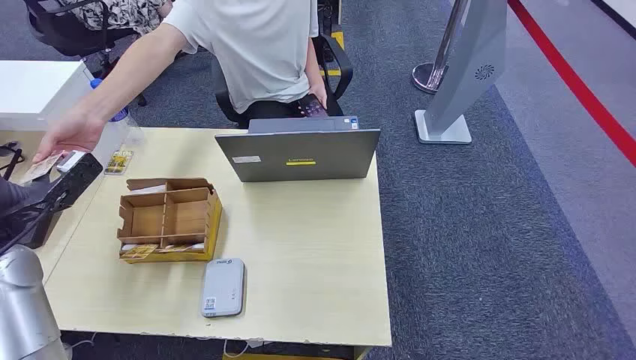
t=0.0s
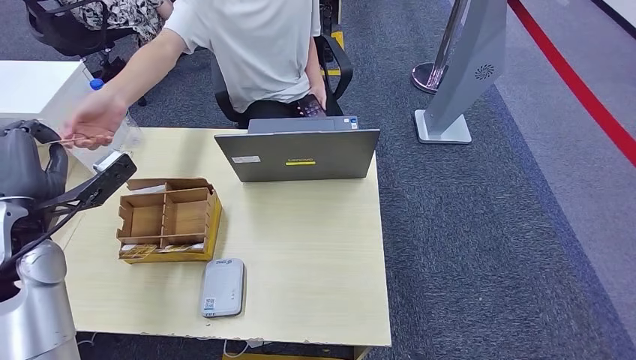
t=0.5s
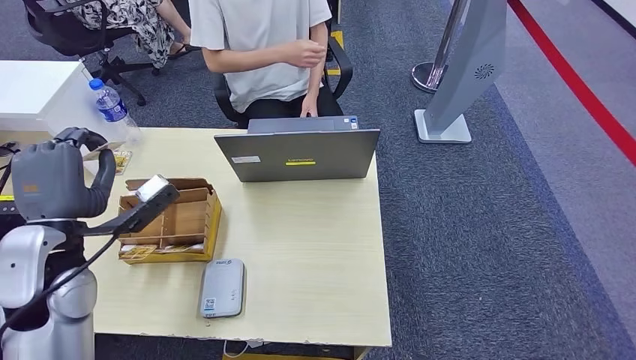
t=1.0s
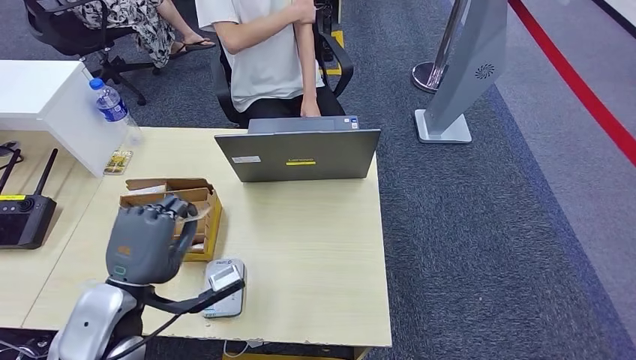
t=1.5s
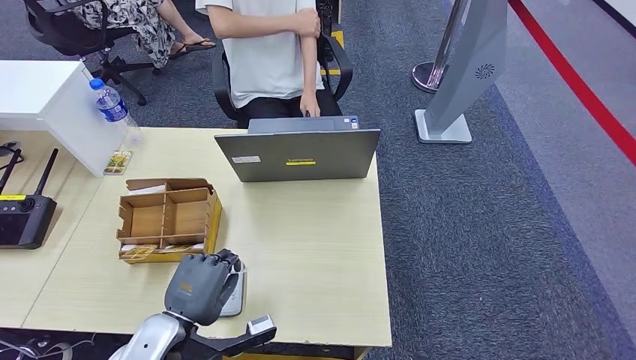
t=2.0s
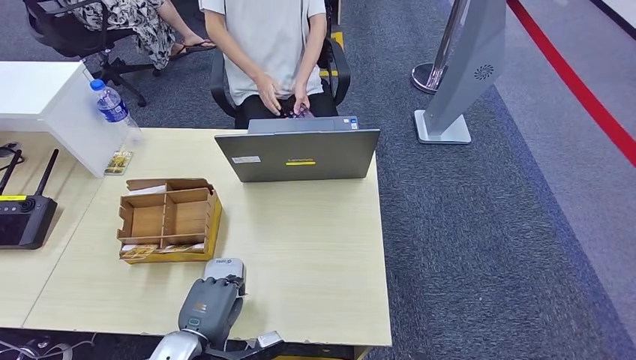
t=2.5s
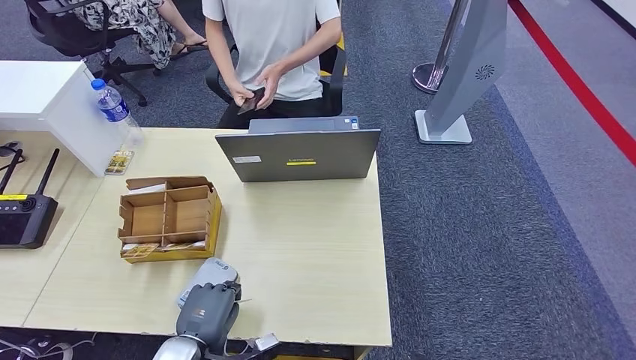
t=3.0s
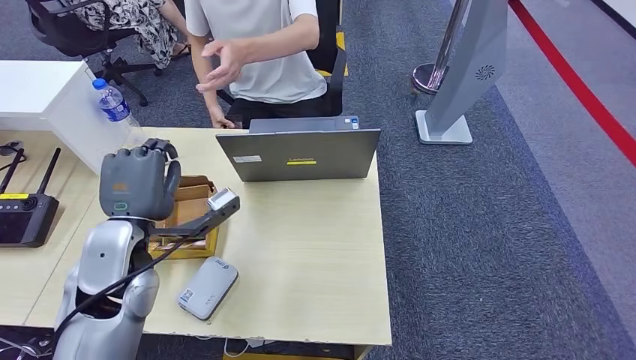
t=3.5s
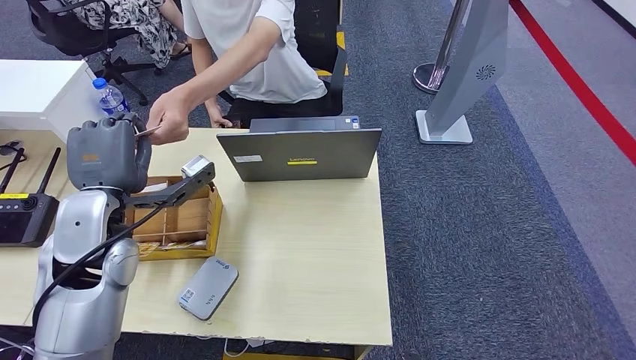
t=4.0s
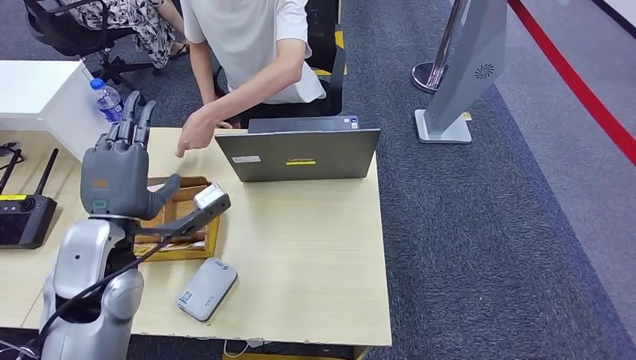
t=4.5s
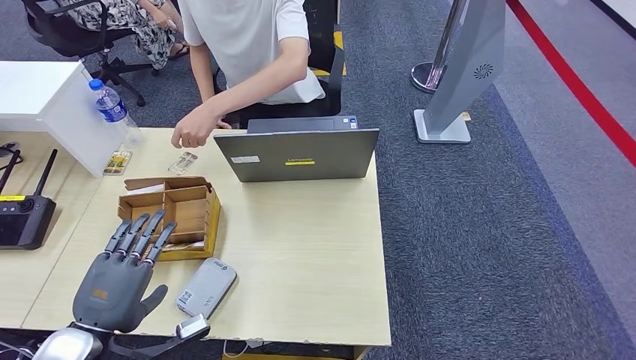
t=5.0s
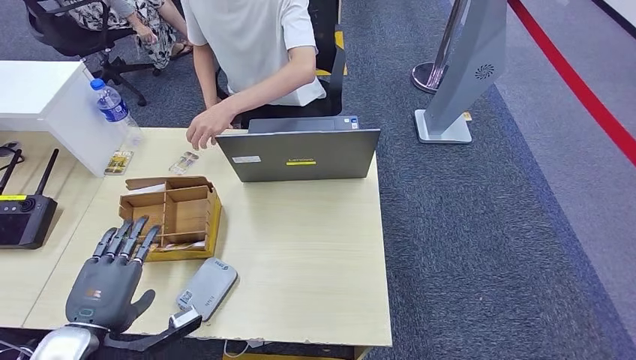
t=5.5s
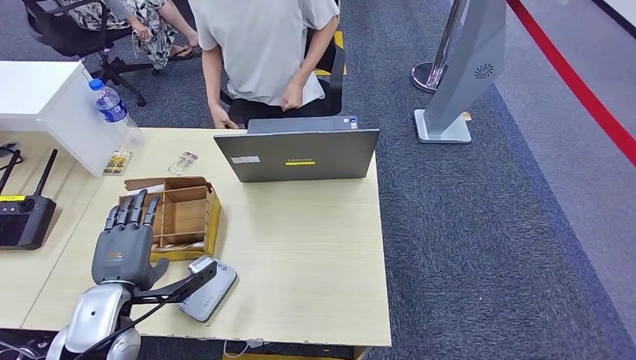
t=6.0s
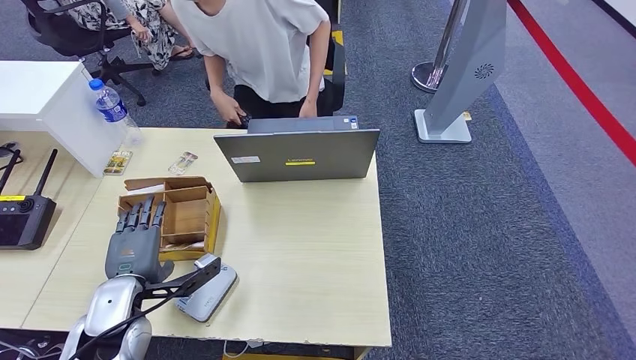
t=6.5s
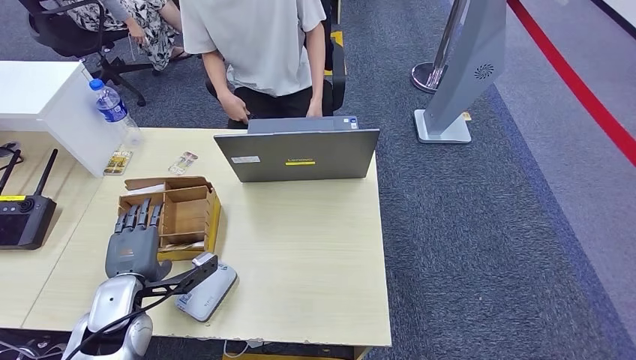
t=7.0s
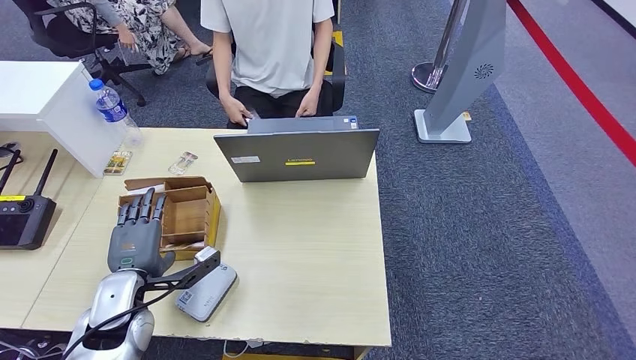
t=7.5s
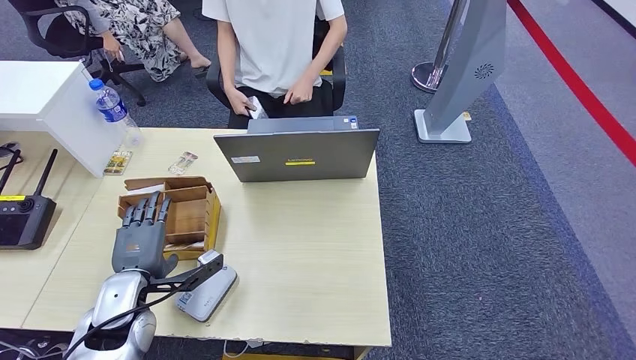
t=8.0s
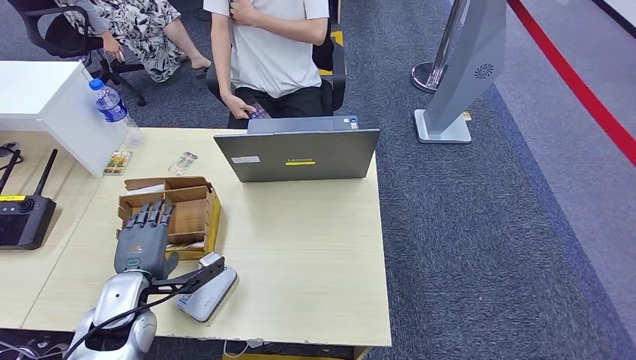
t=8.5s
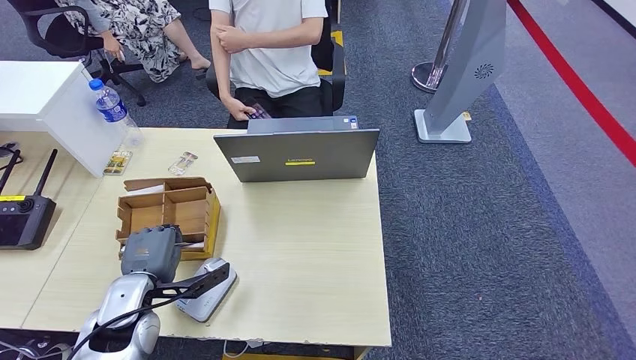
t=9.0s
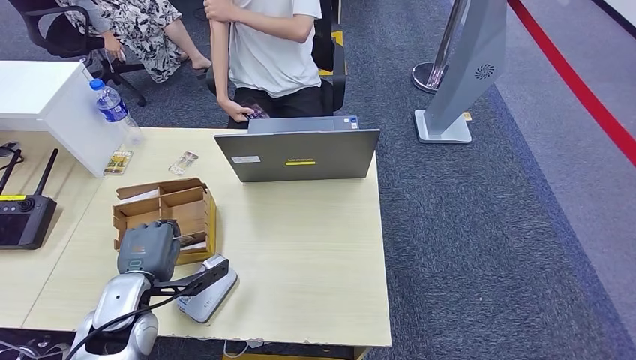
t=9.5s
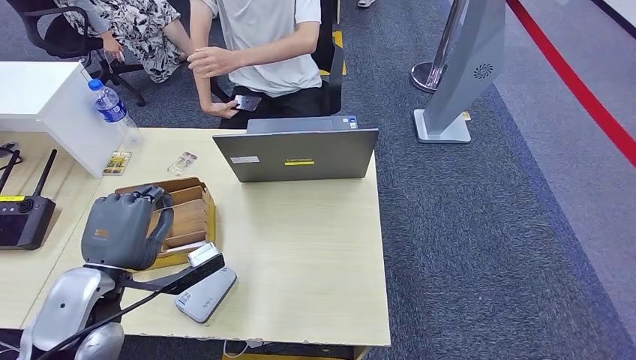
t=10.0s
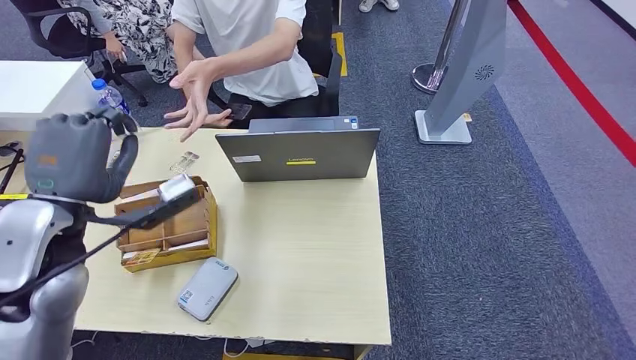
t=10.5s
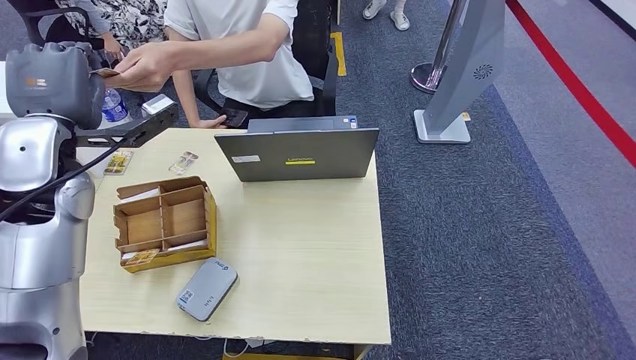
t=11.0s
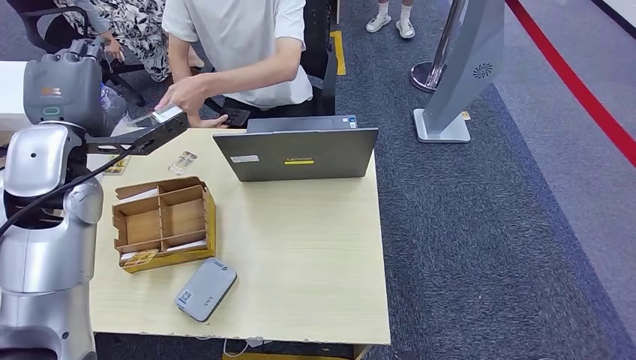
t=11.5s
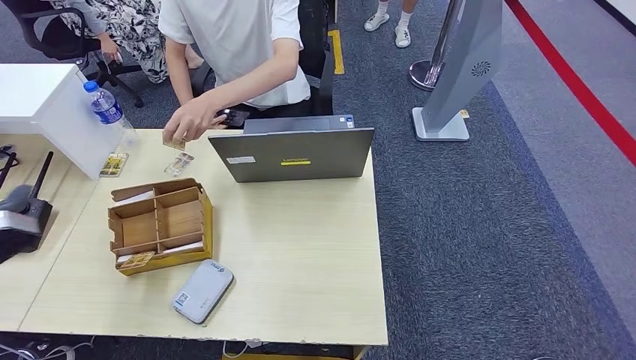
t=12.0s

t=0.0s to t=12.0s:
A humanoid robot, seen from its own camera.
Step, t=0.0s to t=1.0s: Take the ID card from the person's hand.
Step, t=2.0s to t=3.0s: Place the ID card on the card reader.
Step, t=4.0s to t=4.5s: Hand the ID card to the person.
Step, t=5.5s to t=10.0s: Pick up the room key from the key card box.
Step, t=11.0s to t=12.0s: Hand the room key to the person.
t=6.0s to t=8.0s: The left hand moves some 5 cm.
t=8.0s to t=10.0s: The left hand shifts roughly 10 cm upward.
